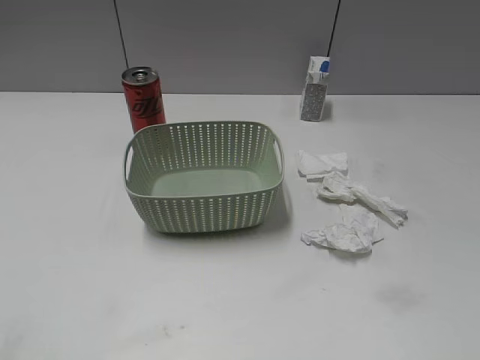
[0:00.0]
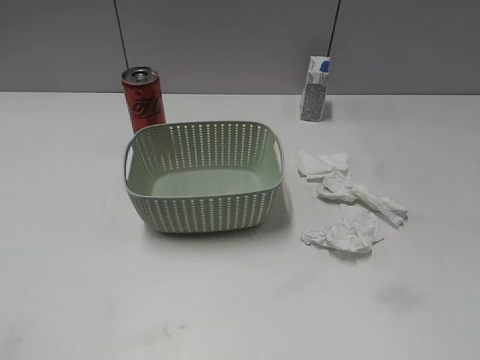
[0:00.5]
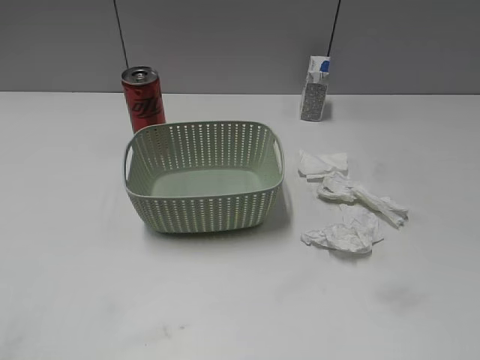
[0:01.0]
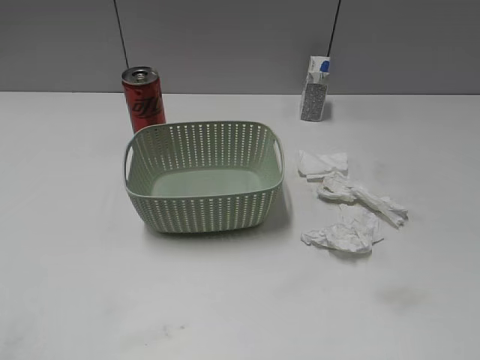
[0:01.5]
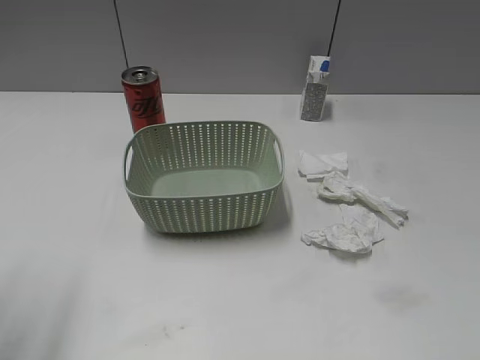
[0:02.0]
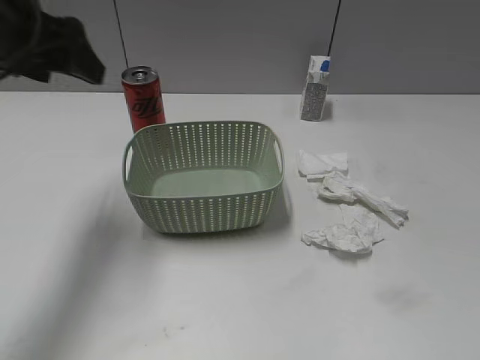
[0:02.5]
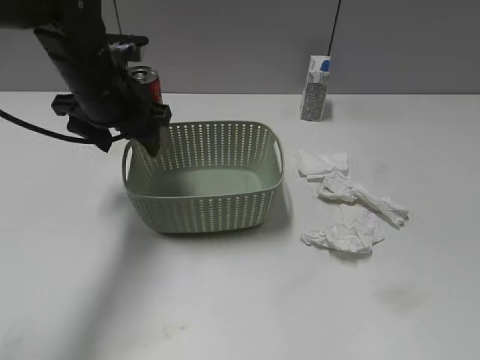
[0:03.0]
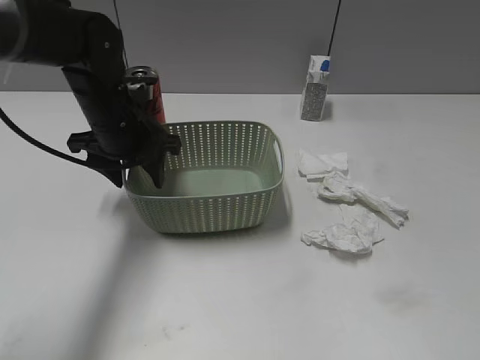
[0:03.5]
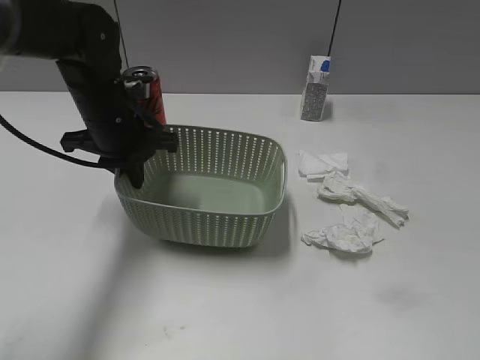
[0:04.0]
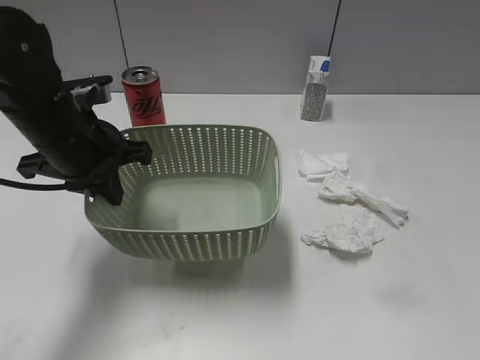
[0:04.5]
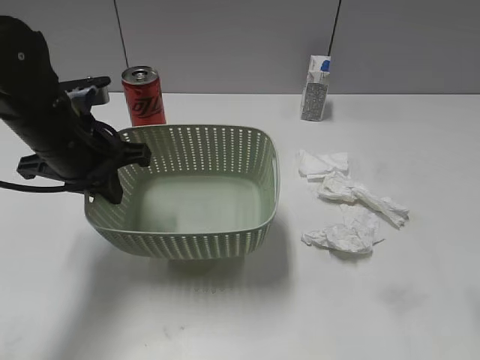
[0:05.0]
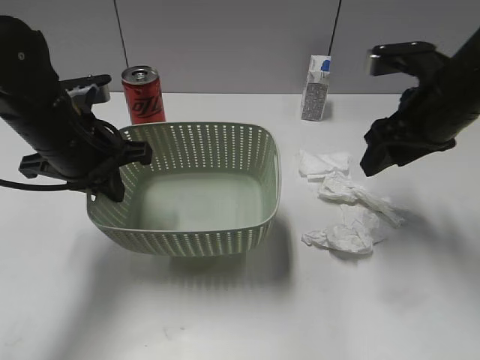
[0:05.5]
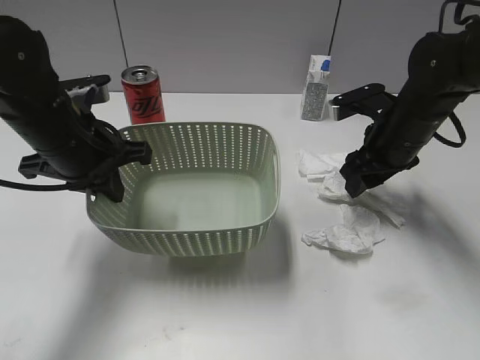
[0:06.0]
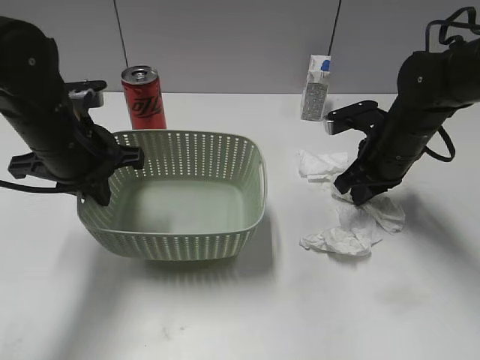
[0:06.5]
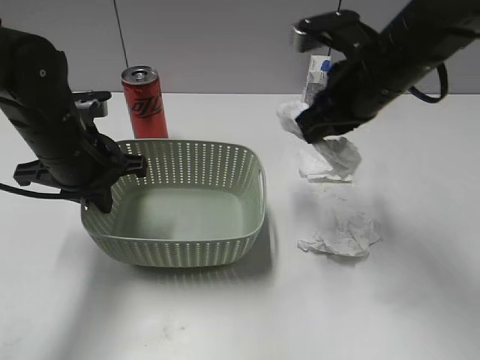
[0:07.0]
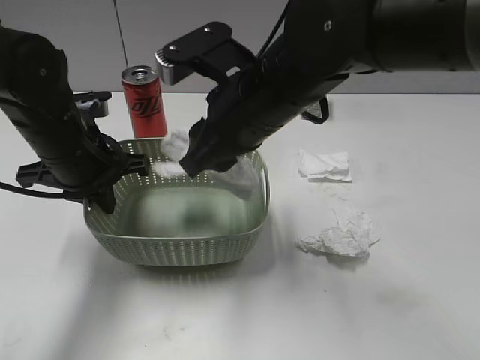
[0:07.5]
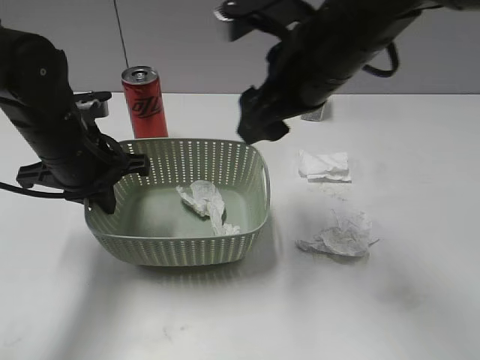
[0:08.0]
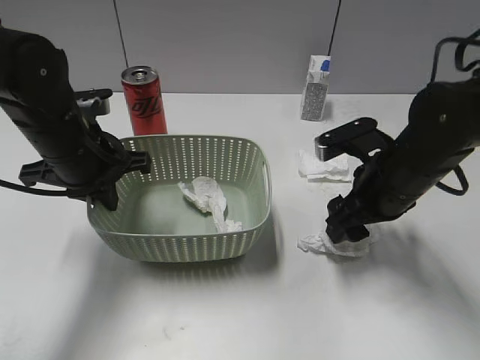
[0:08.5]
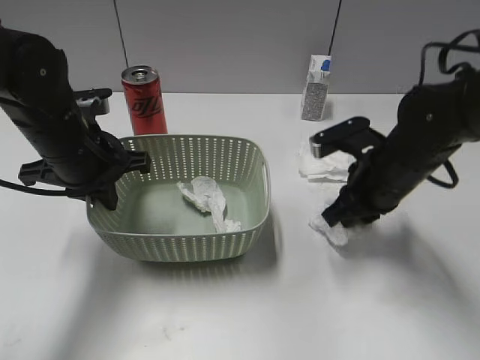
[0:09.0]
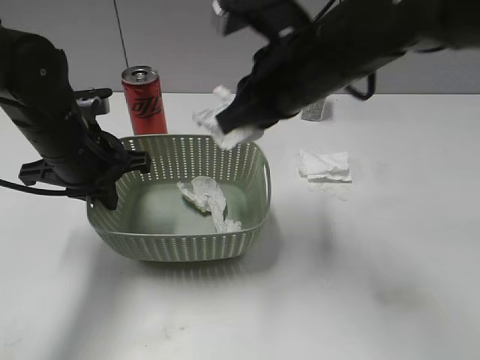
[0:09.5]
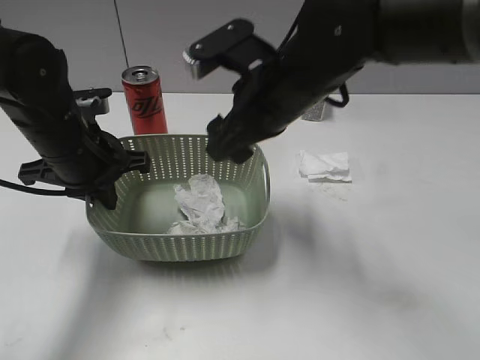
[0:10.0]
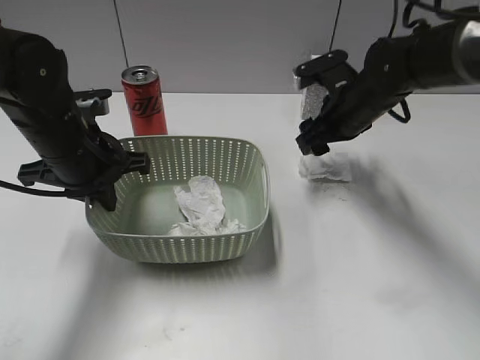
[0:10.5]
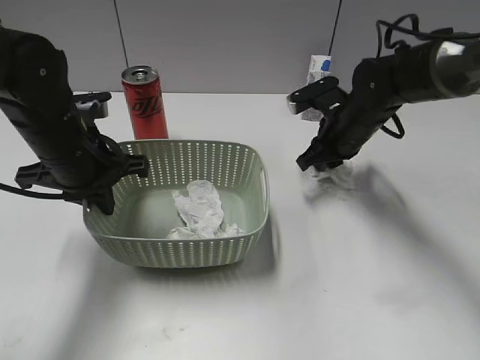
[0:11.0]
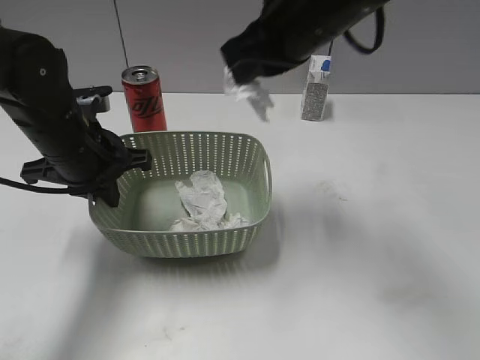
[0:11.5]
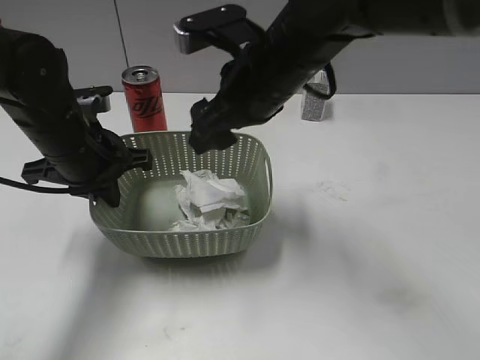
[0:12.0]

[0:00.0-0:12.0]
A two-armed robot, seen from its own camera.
Step, 0:00.0 to 0:03.5: Grasp the basket with left gripper.
Step, 0:04.0 to 0:05.0: Lift the basket with left gripper.
Step, 0:05.5 to 0:06.5: Grasp the waste paper with right gripper.
Step, 0:07.0 to 0:07.5: Place the waste paper in the basket with right gripper.
Step, 0:08.0 to 0:09.0: Grasp the waste paper with right gripper.
Step, 0:09.5 to 0:10.0: Place the waste paper in the basket with right gripper.
Step, 0:10.5 to 0:11.0: Grasp the waste paper with right gripper.
0:02.0 to 0:04.0: The left gripper is displaced forward, downward and to the right by roughly 30 cm, and closes.
0:04.0 to 0:06.0: The left gripper travels backward by about 5 cm. Meanwhile the right gripper is displaced forward by about 35 cm.
0:06.0 to 0:08.0: The right gripper travels to the left, upward and backward by some 20 cm, and closes, then reopens.
0:08.0 to 0:10.0: The right gripper goes downward and returns, about 15 cm each way, and closes, then reopens.
0:10.0 to 0:12.0: The right gripper goes up and down, roughly 20 cm each way, reversing 2 times, and closes and opens again.

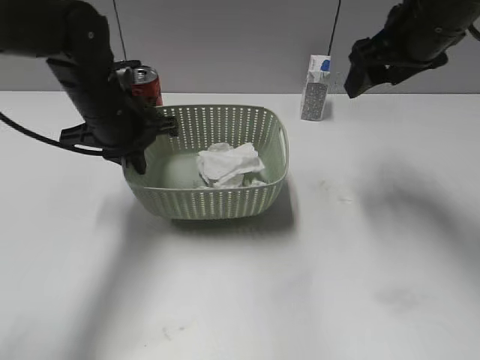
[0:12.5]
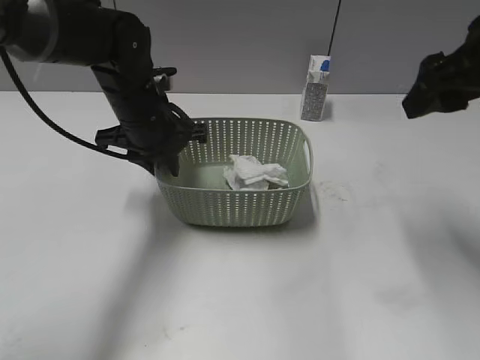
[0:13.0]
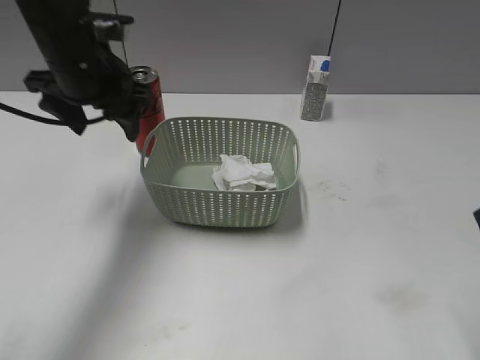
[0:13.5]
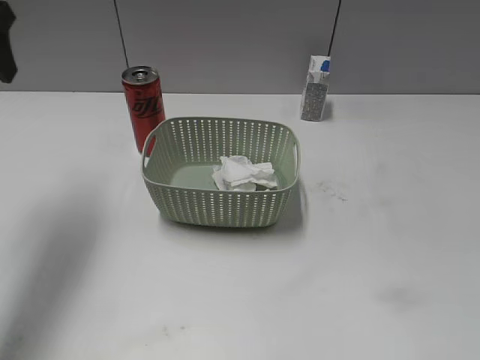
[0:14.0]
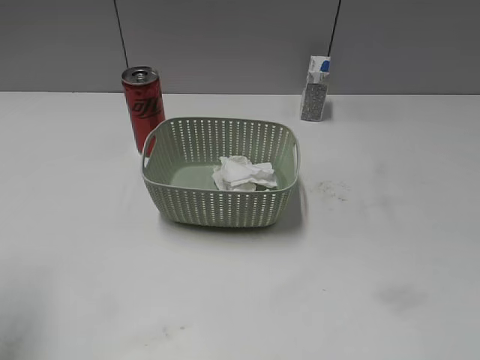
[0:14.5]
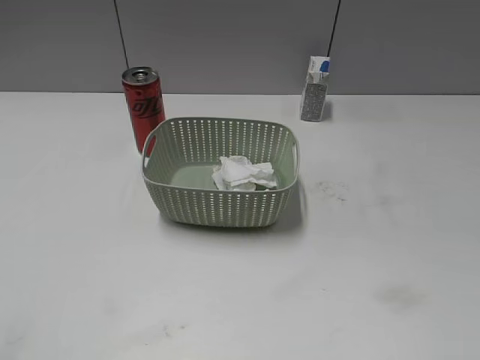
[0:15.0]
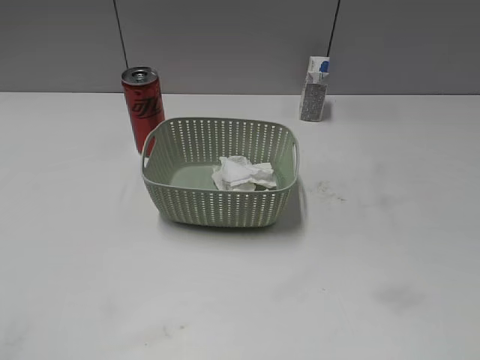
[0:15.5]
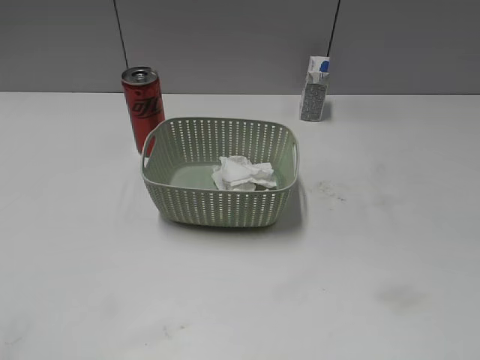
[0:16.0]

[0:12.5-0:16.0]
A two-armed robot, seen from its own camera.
Step, 0:12.5 to 0:13.5: Place the basket on the table with left gripper.
0:12.5 to 0:14.5: The left gripper moves backward, to the left and upward, roughly 30 cm, and opens its fingers. The right gripper heads backward, covering roughly 35 cm.
0:14.5 to 0:16.0: The left gripper moves backward, about 20 cm.
